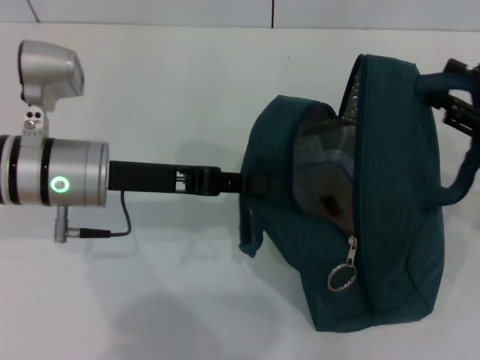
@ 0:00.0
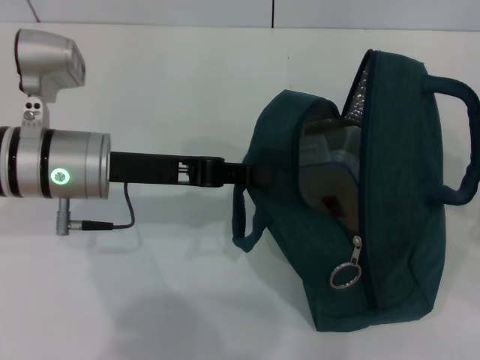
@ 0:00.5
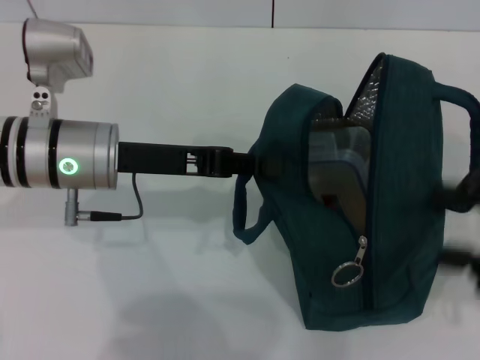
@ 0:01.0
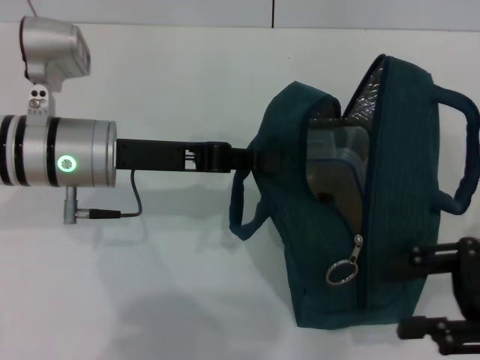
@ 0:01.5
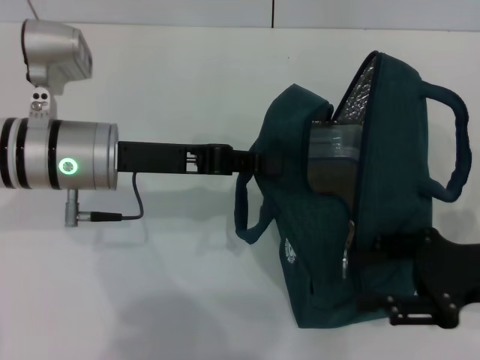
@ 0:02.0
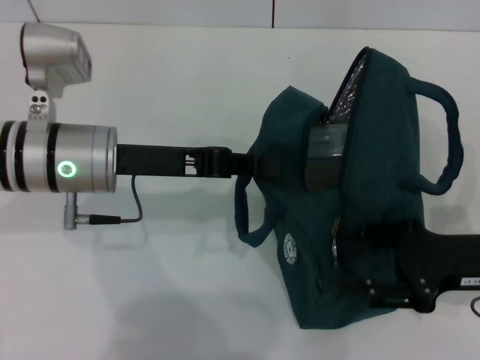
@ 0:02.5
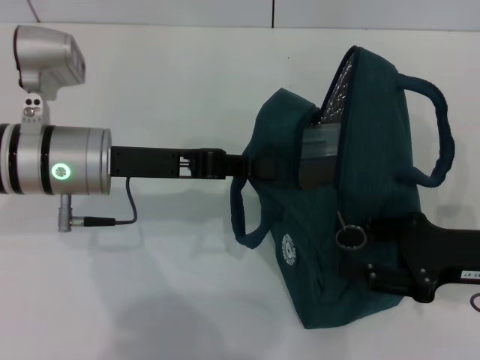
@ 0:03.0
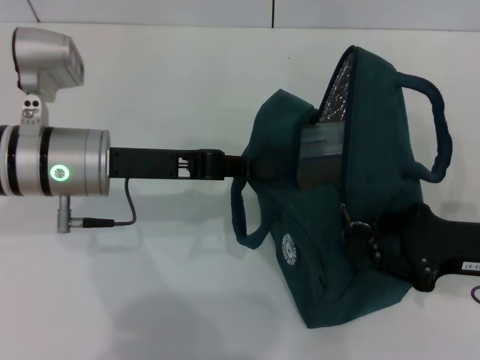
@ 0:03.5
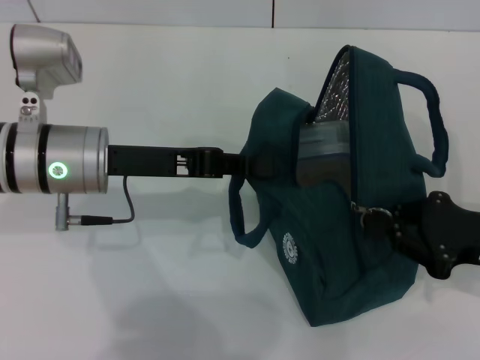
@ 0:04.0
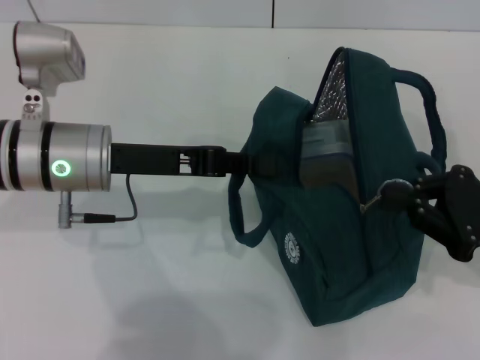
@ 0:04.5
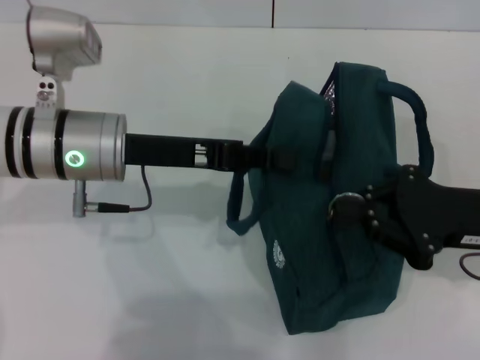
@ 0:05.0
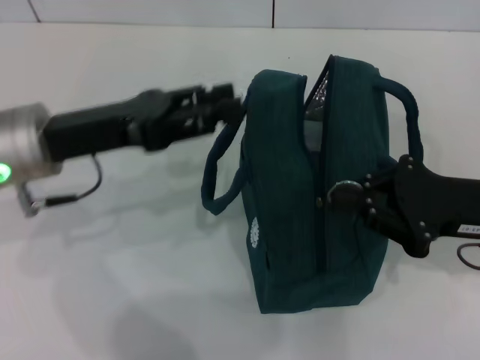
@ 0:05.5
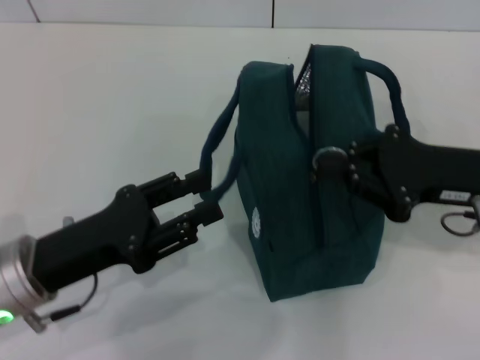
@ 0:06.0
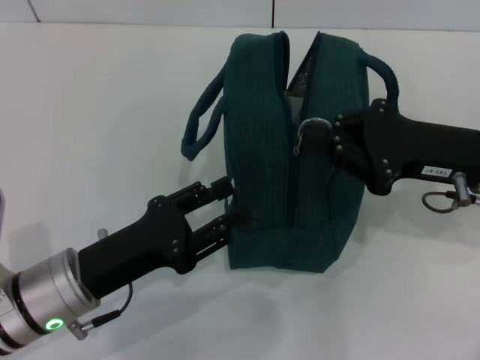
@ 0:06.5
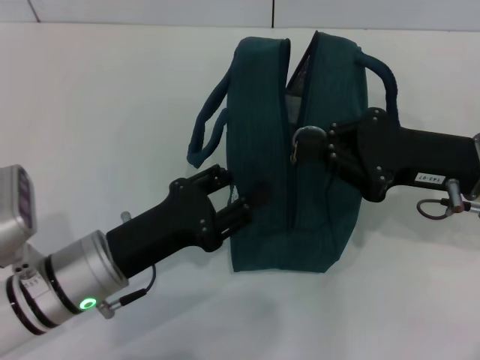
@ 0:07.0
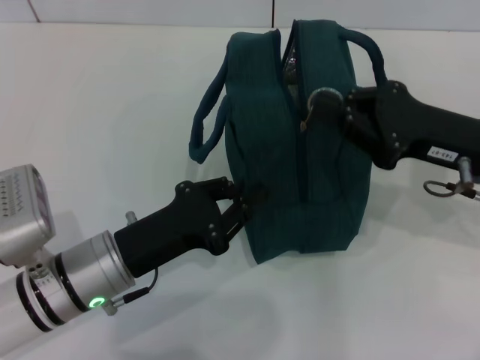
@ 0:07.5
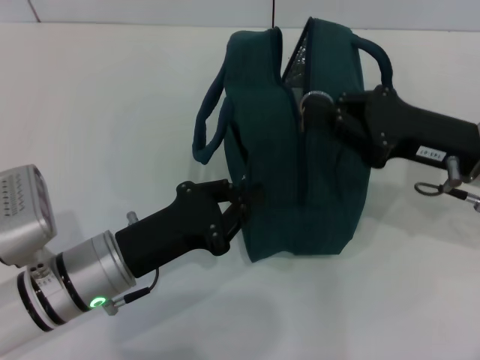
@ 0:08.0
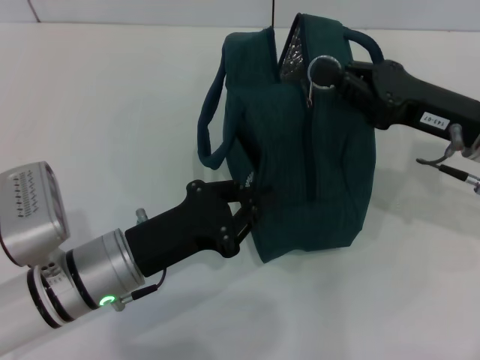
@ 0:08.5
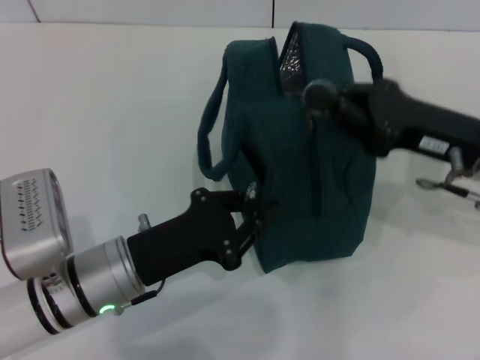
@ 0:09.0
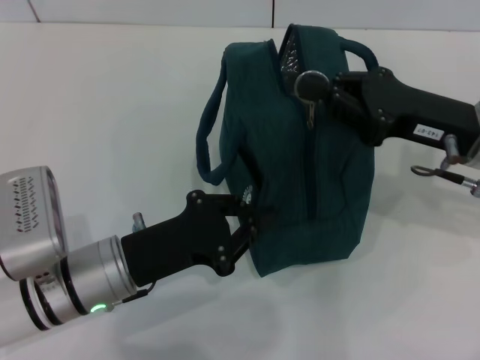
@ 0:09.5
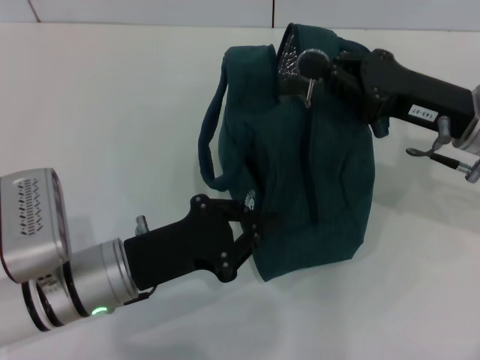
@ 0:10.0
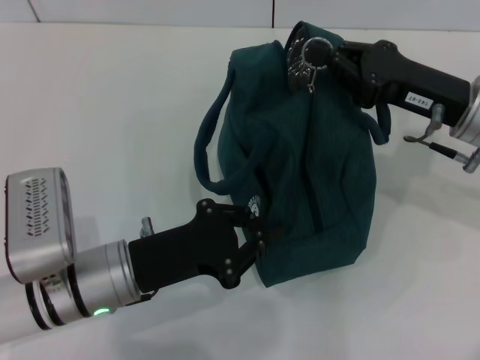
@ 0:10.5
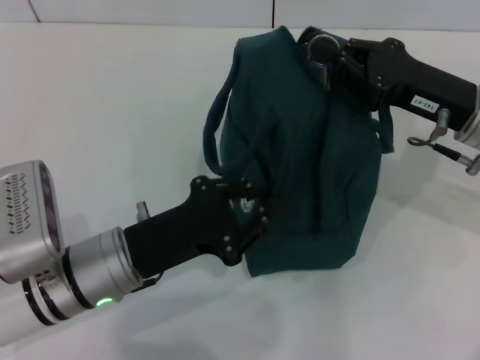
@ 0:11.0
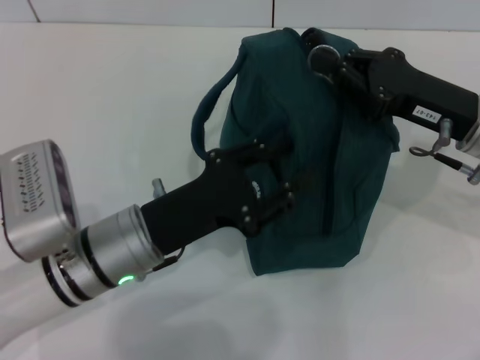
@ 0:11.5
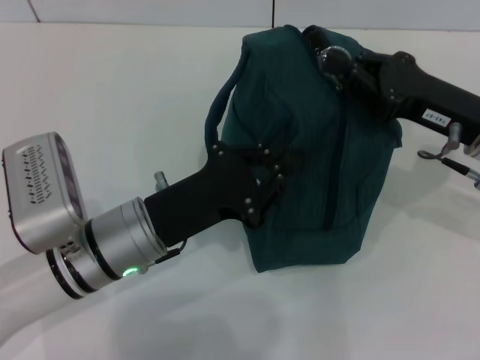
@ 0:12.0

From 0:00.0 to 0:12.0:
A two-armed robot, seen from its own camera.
Step, from 0:00.5 to 0:05.0: Hold the lunch bag with your left hand.
From 0:00.0 to 0:02.0: The right gripper shifts by about 5 cm.
From 0:02.0 to 0:04.0: The right gripper closes.
From 0:04.0 to 0:06.0: The left gripper goes approximately 10 cm backward and downward, and opens up. Meanwhile the right gripper changes place by about 10 cm.
From 0:06.0 to 0:08.0: The left gripper goes about 5 cm to the right, and closes.
From 0:08.0 to 0:12.0: The grippers stay close to where they were, moving slightly.

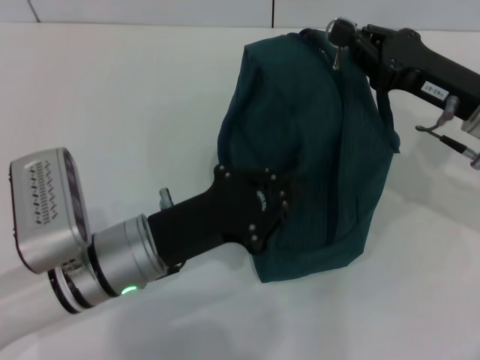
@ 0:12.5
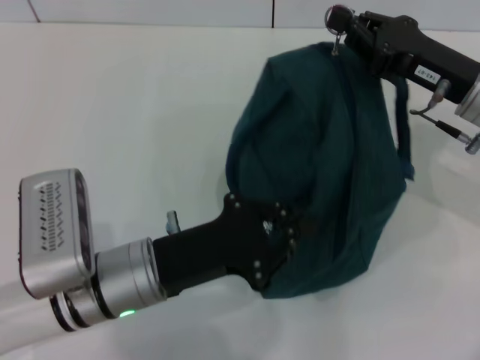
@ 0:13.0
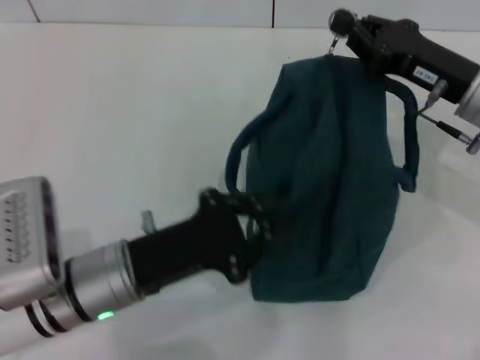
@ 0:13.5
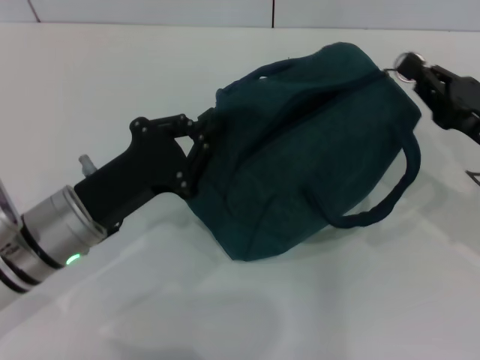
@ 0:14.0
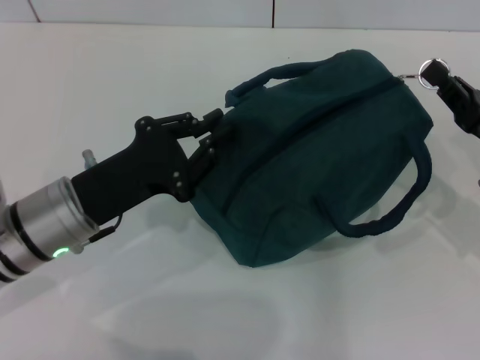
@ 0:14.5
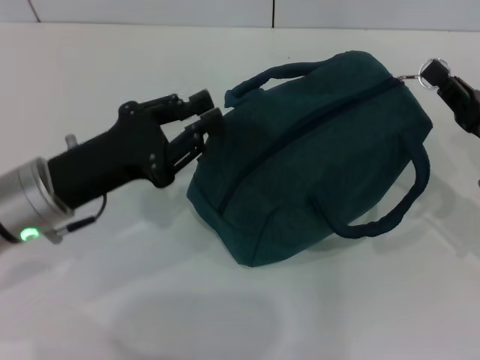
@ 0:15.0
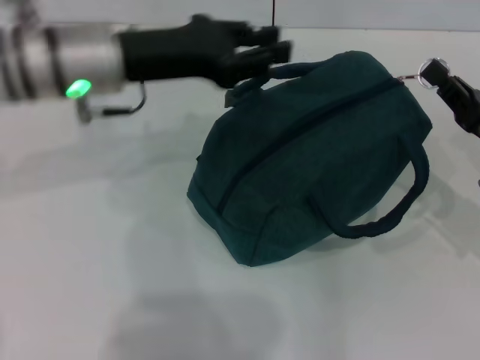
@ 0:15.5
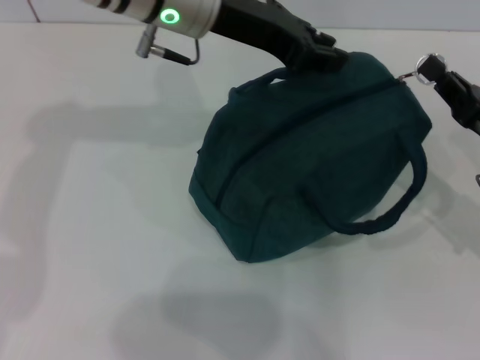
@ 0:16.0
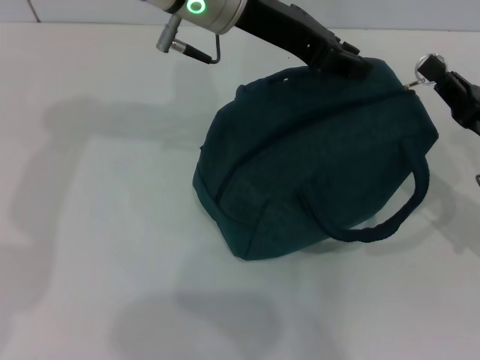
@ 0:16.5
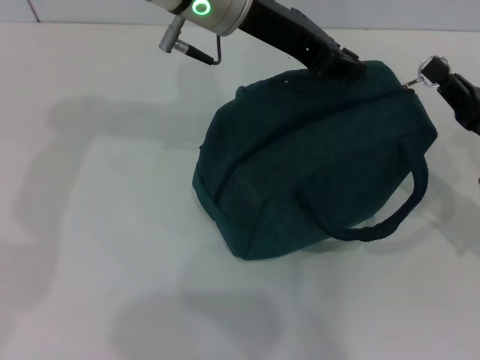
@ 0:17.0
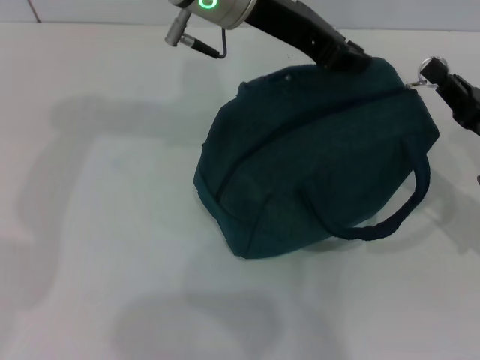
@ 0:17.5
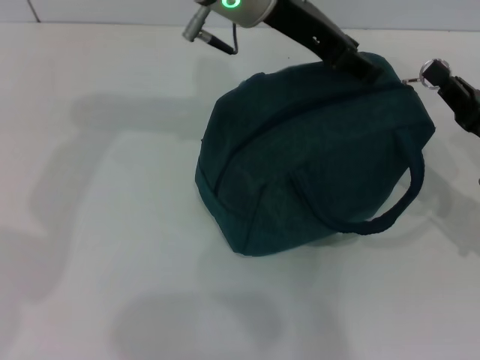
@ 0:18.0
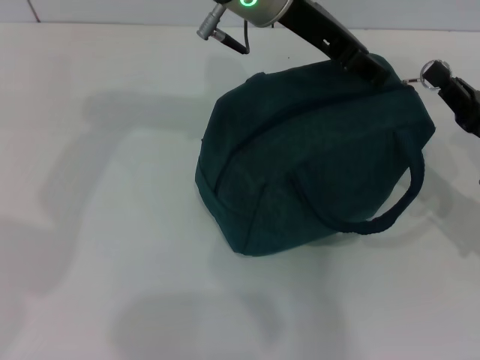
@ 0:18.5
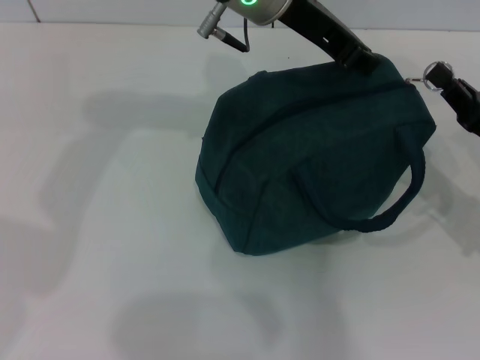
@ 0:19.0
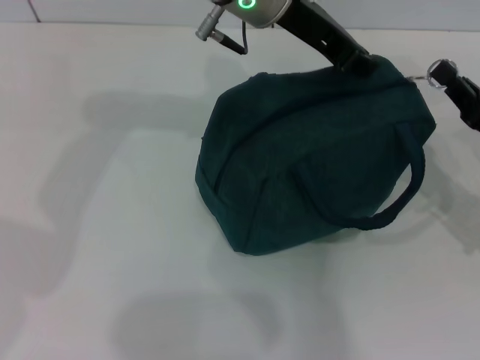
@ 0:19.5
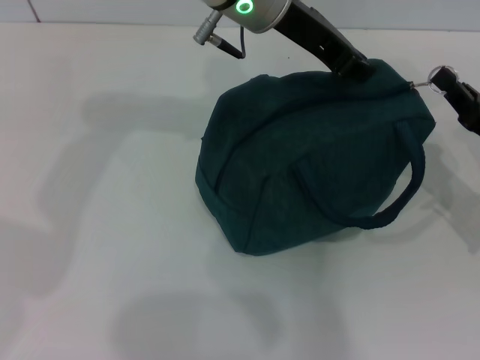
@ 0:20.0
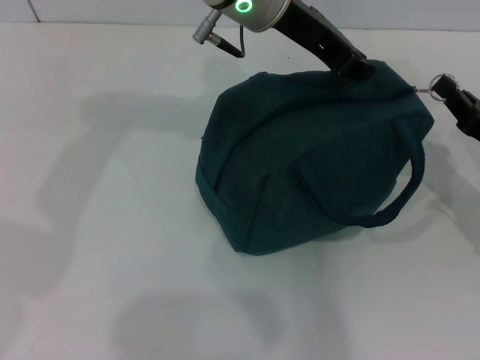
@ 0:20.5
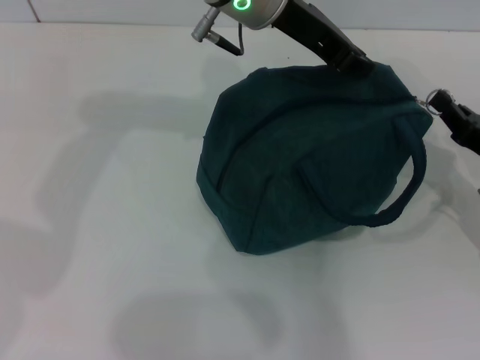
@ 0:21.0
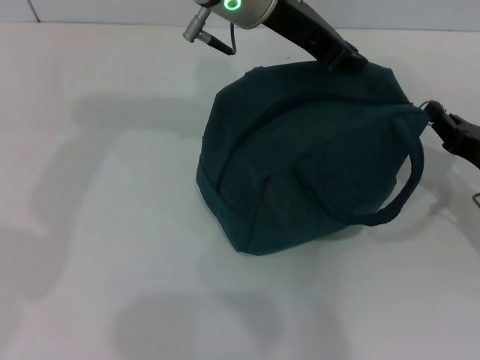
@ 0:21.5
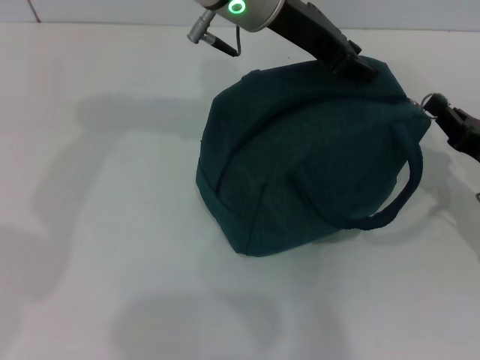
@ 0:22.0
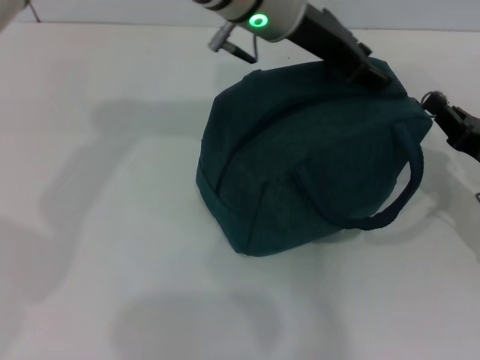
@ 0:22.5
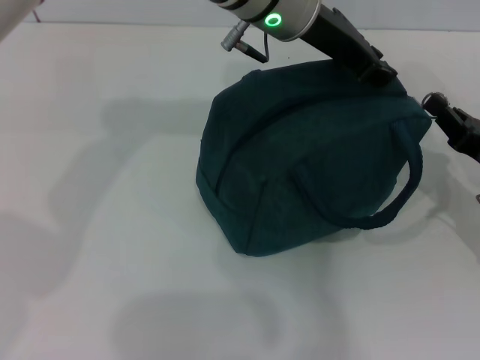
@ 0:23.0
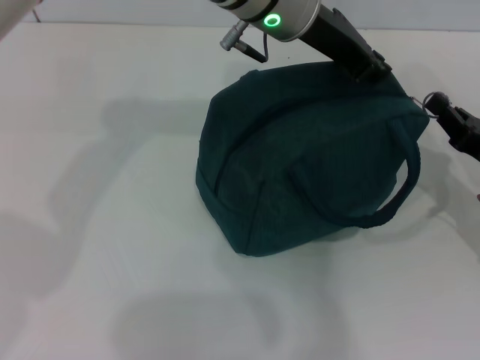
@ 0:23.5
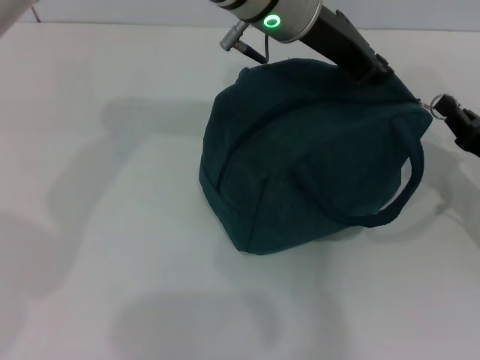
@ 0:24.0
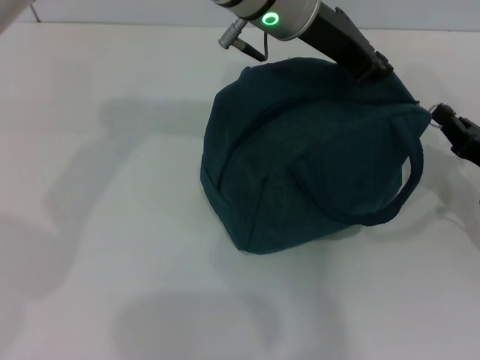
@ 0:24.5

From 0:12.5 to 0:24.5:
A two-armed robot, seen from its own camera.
From 0:12.5 to 0:14.5: The right gripper is displaced backward, to the right and downward by approximately 10 cm, while the left gripper travels to the left by approximately 5 cm.
From 0:14.5 to 0:16.5: The left gripper heads upward, forward and to the right, covering roughly 25 cm.
From 0:16.5 to 0:18.5: The left gripper opens up.
From 0:18.5 to 0:20.5: The left gripper closes.
From 0:20.5 to 0:22.5: The left gripper opens up.
From 0:22.5 to 0:24.5: The left gripper closes its fingers.

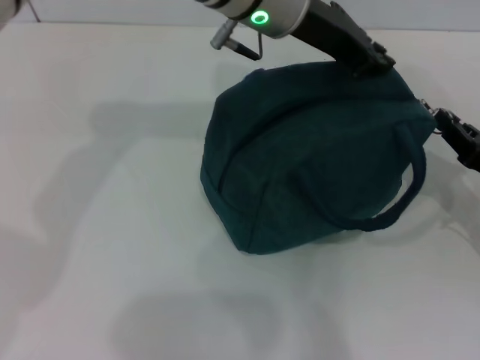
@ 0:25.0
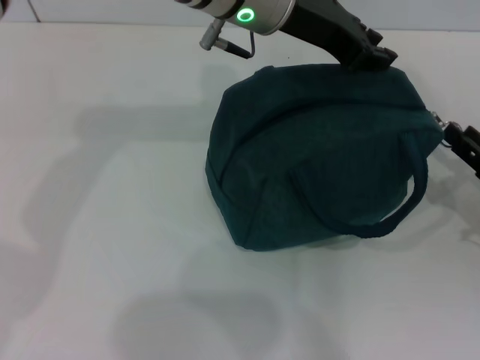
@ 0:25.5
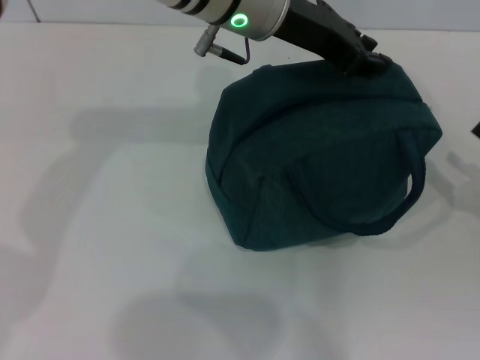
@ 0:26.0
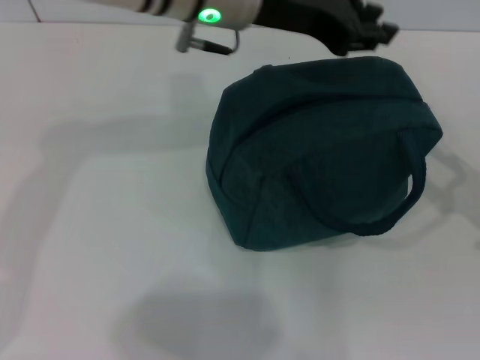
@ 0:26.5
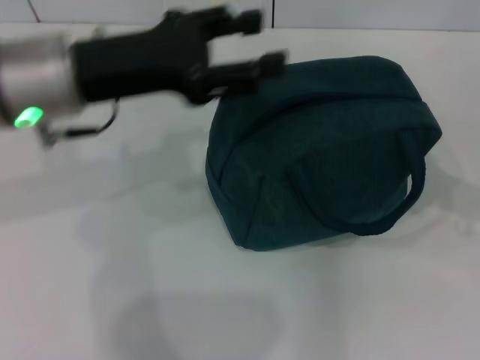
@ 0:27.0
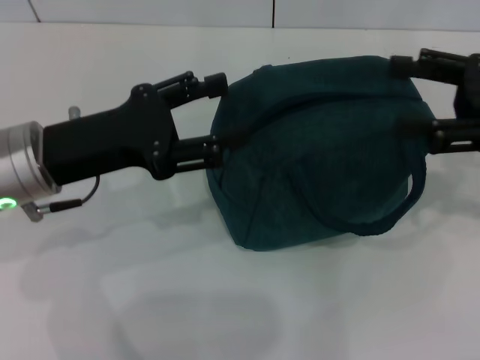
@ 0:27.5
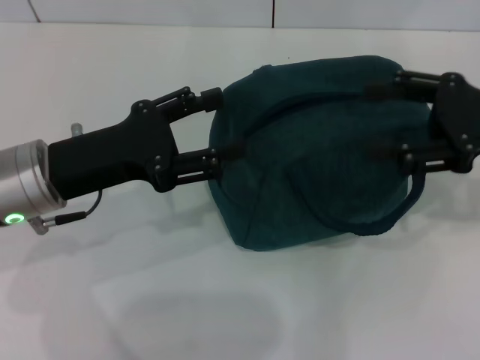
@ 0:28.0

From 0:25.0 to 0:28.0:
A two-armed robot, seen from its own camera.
From 0:25.0 to 0:26.5: The left gripper is displaced to the left by about 5 cm. The right gripper ends up roughly 5 cm from where it was, and opens its fingers.
From 0:26.5 to 0:28.0: The right gripper is displaced upward, forward and to the left by roughly 15 cm; the left gripper is displaced to the left, downward and backward by approximately 20 cm, and opens its fingers.
